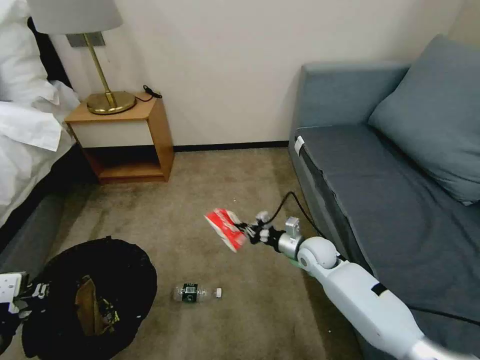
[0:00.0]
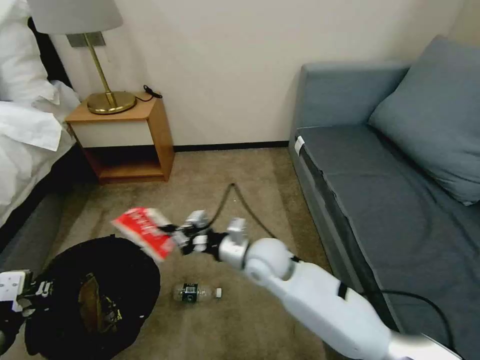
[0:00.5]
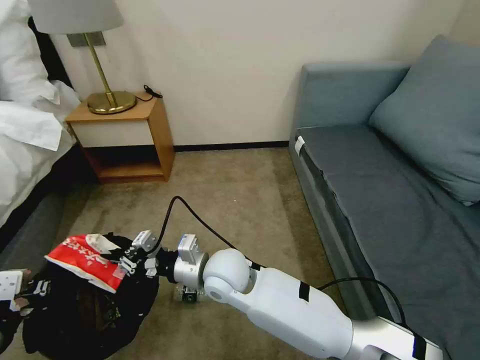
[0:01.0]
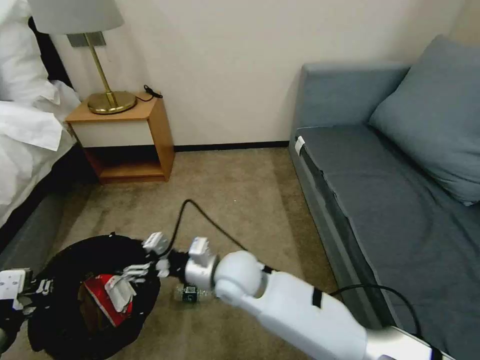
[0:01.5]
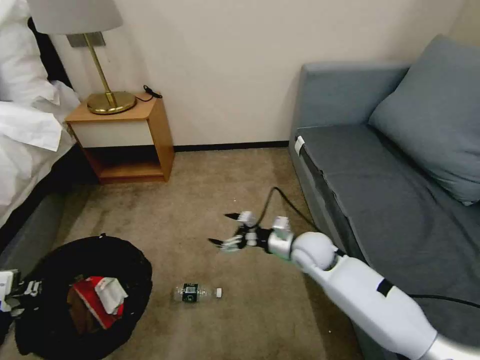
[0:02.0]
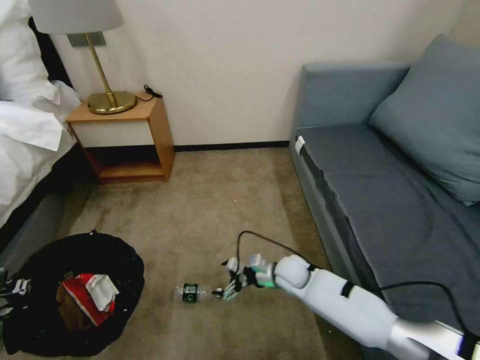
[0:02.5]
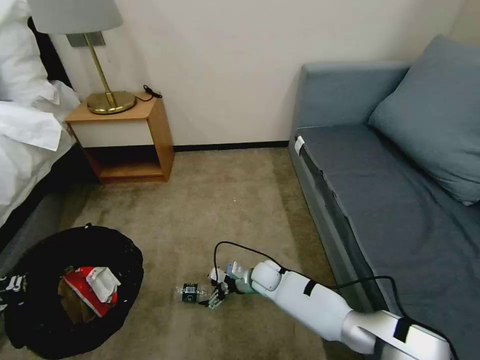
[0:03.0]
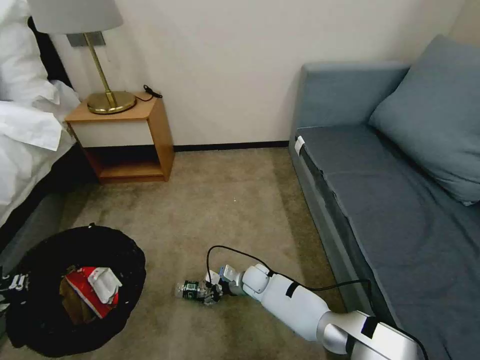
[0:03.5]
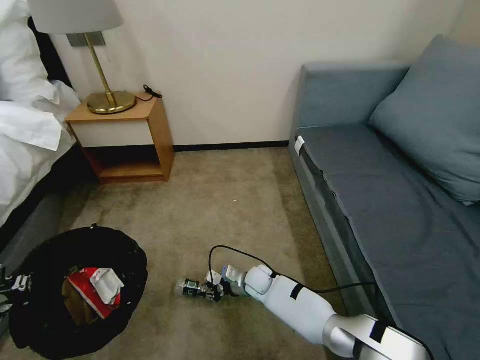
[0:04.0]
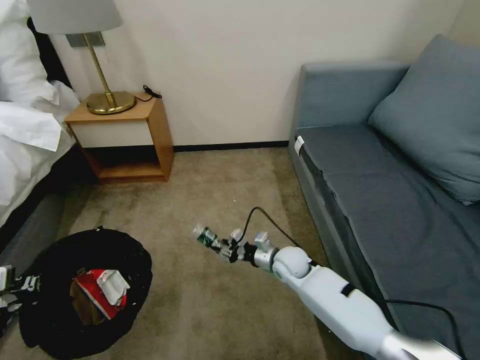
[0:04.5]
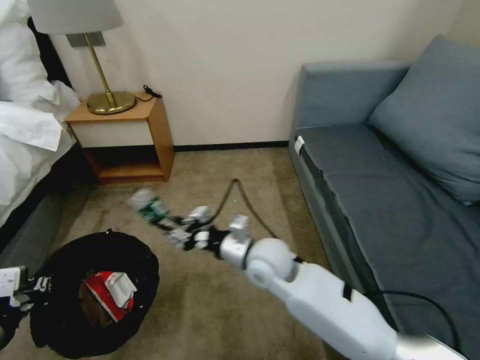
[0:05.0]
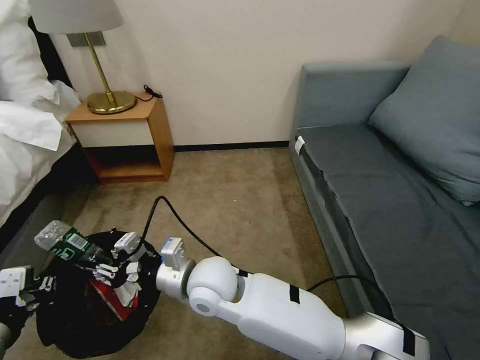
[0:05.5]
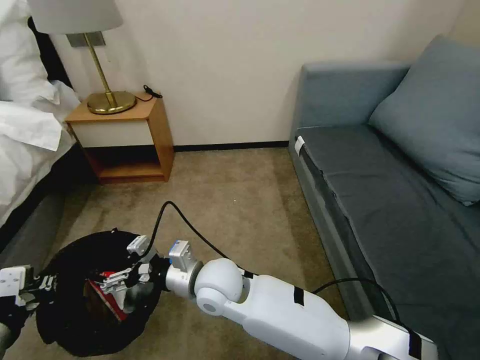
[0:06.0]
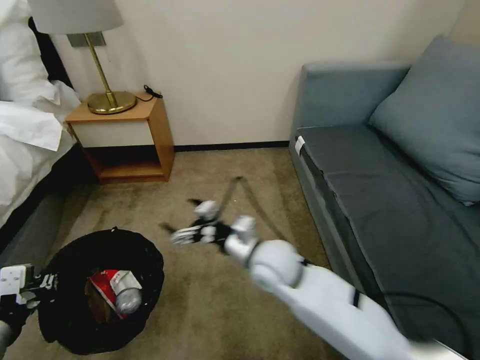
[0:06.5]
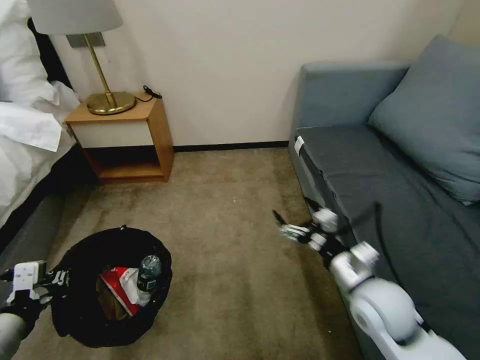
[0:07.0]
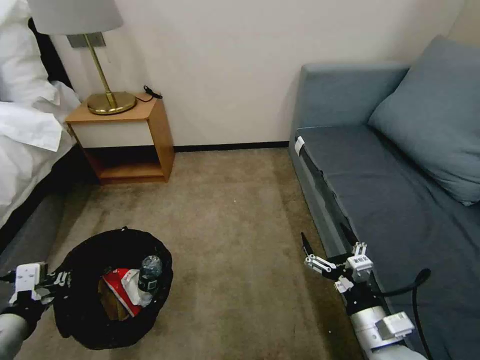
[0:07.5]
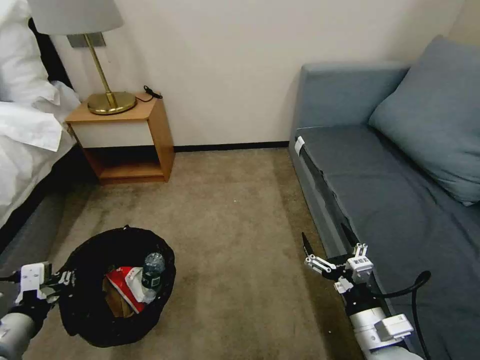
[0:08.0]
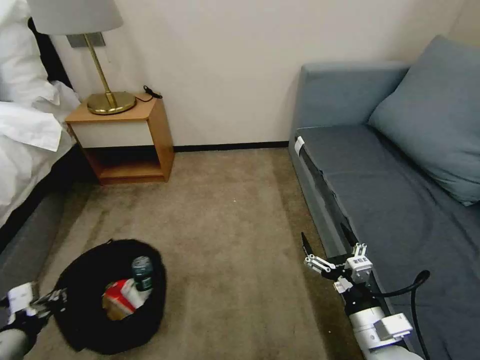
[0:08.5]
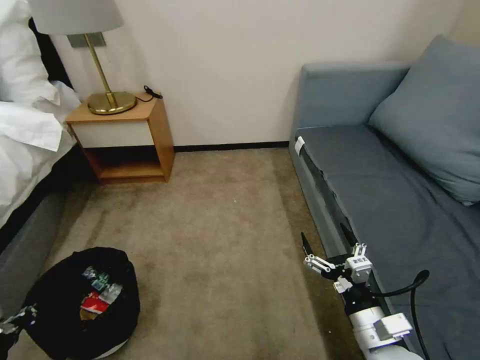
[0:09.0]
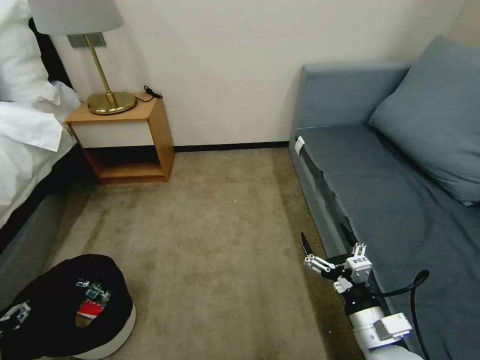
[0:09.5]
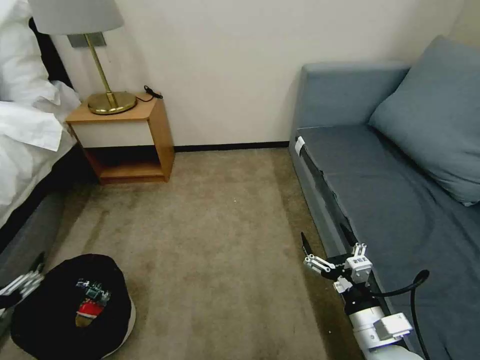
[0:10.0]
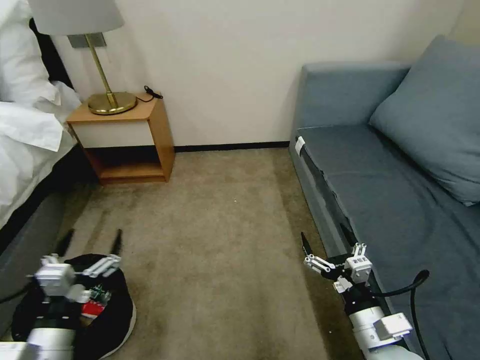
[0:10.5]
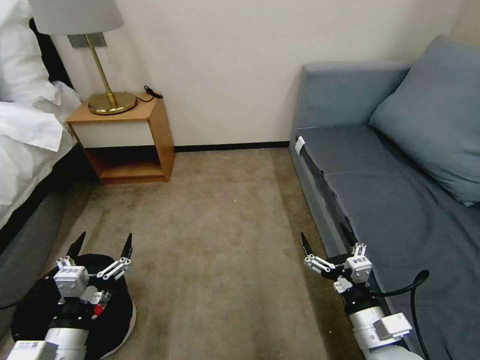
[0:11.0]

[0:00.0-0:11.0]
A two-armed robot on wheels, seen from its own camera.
Task of the whole recording: Pick up the trash bin, then pick up the garbage on the floor and place it into the trash bin.
0:00.0 to 0:02.0: The right gripper is displaced upward by approximately 5 cm, reaches approximately 25 cm to the left, then returns, and opens up.
0:02.0 to 0:03.5: The right gripper moves downward and to the left, approximately 25 cm.
0:03.5 to 0:05.5: The right gripper heads upward, to the left and backward, covering some 30 cm, and closes its fingers.
0:05.5 to 0:07.5: The right gripper is displaced to the right and backward by roughly 35 cm, and opens.
0:07.5 to 0:09.0: The left gripper heads downward and to the left, covering some 15 cm.
0:09.0 to 0:11.0: The left gripper travels to the right by about 20 cm, and opens.

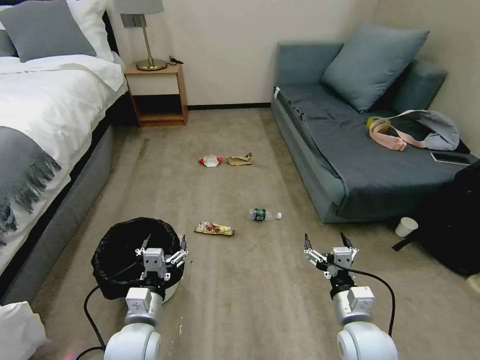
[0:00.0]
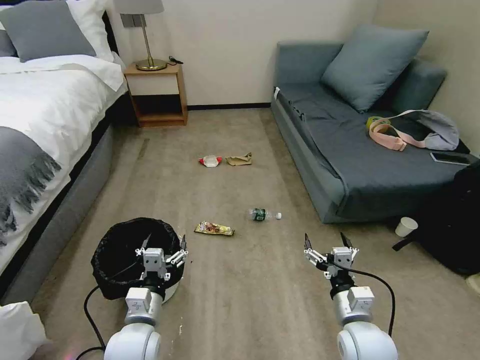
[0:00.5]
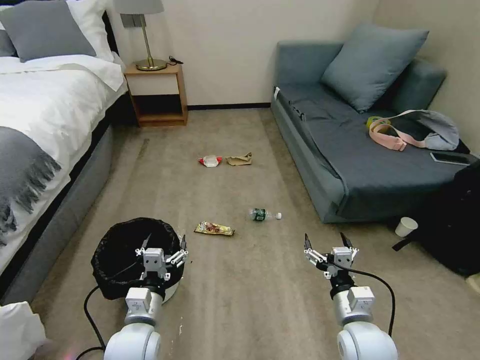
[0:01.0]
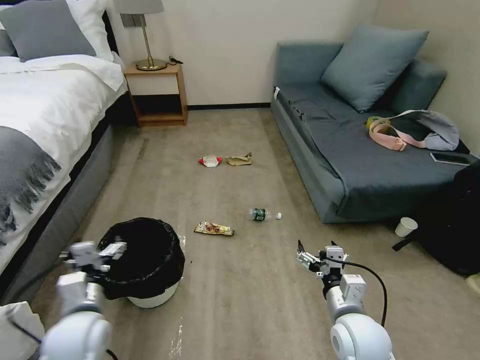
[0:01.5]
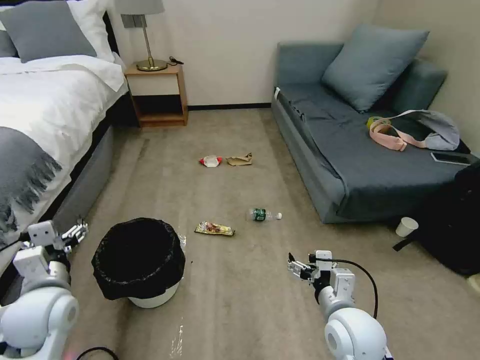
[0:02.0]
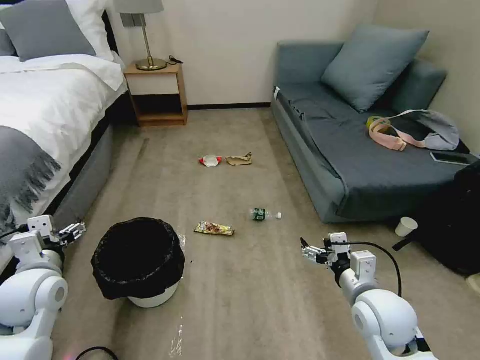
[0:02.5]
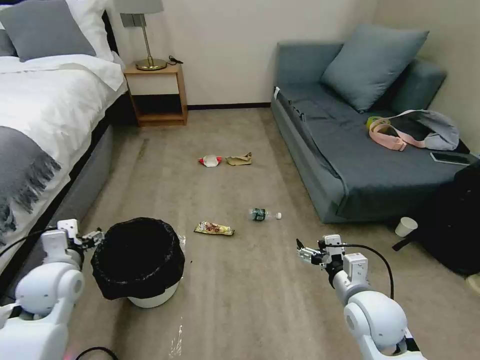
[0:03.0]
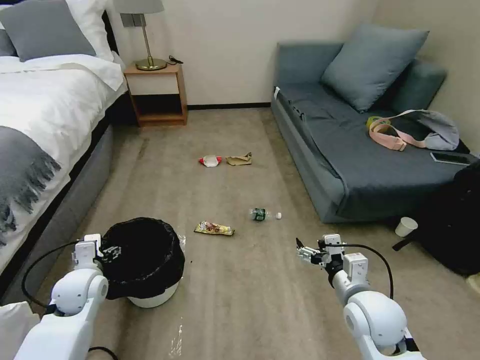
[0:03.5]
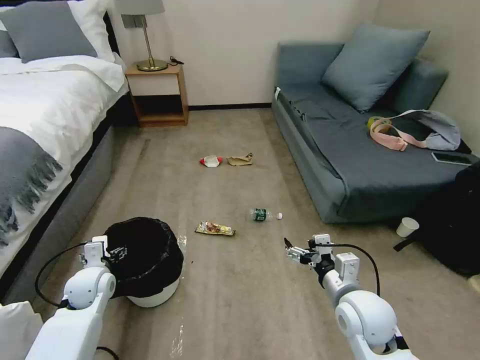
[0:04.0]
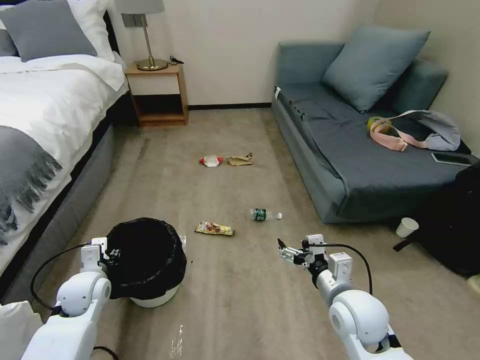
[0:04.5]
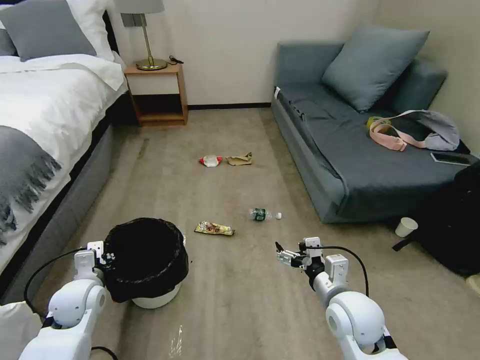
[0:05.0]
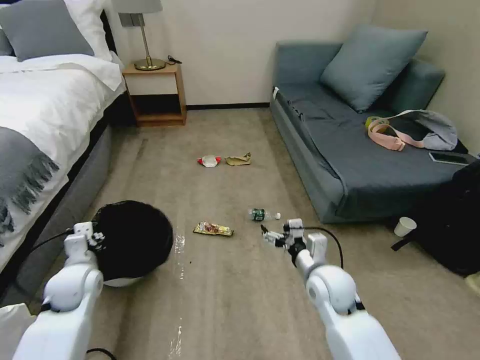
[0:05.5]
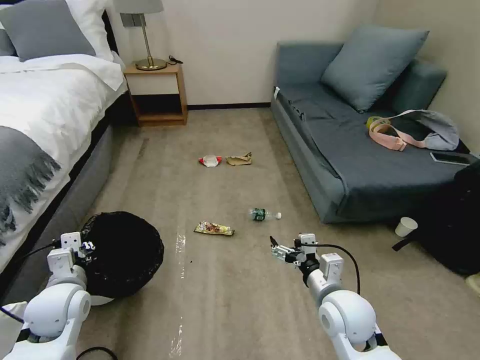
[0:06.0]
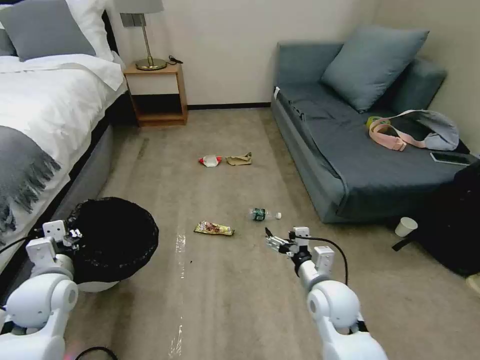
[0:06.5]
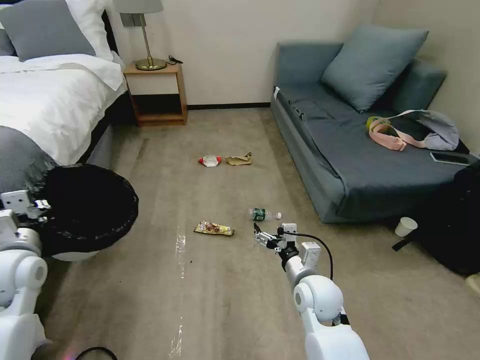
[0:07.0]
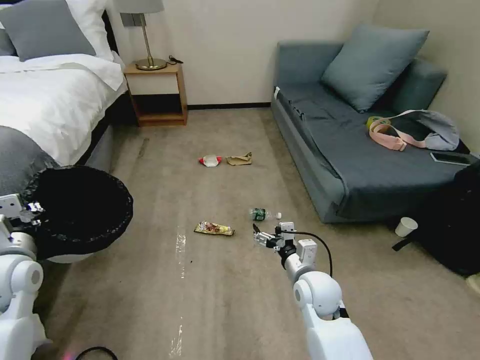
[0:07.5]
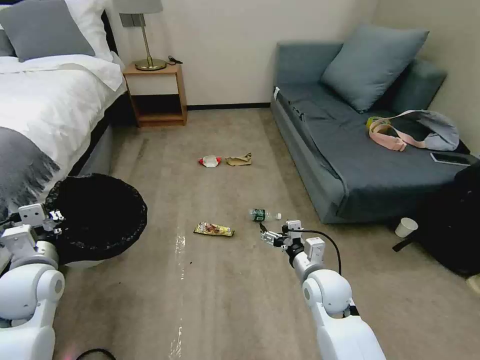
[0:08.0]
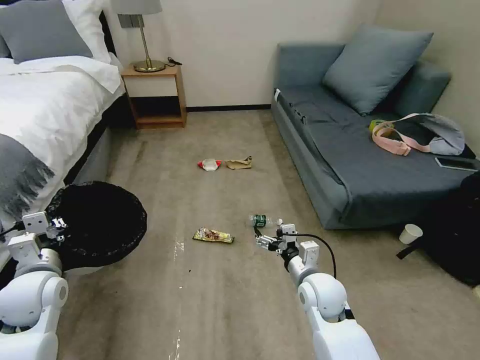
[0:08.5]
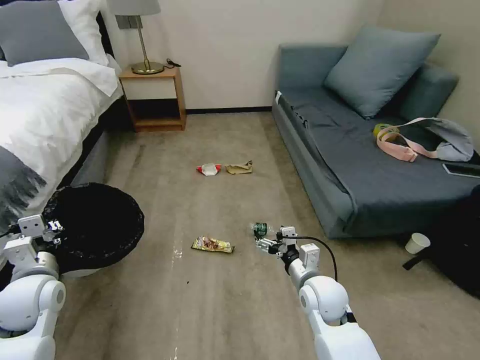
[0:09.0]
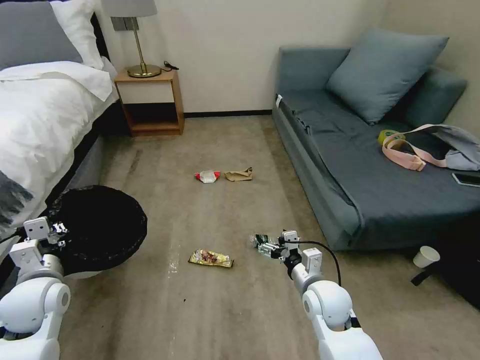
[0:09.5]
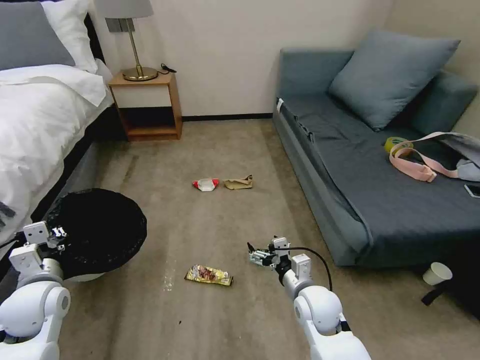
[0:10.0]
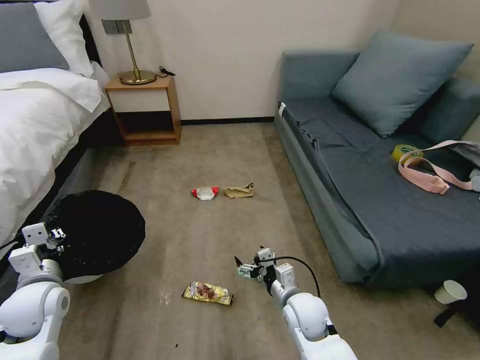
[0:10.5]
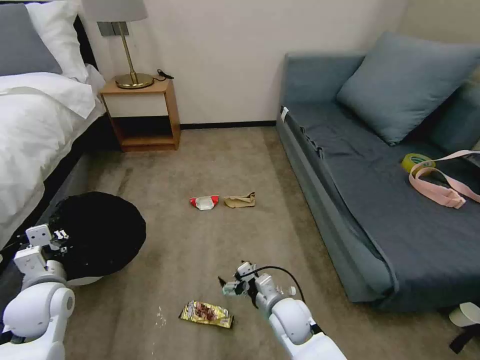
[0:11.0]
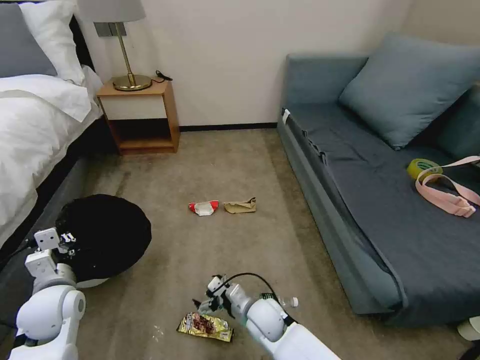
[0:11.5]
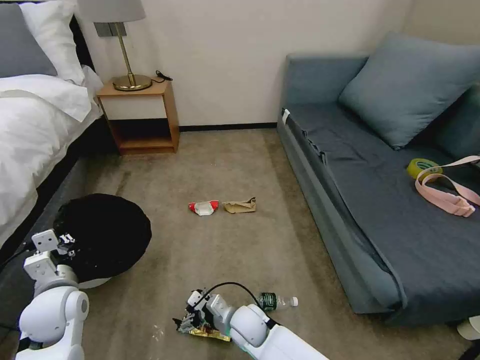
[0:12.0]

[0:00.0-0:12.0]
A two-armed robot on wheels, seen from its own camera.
Task of the whole recording: Pick up the trash bin, then pick up the garbage on the floor and place it into the trash bin.
0:02.0 to 0:04.0: The left gripper is displaced downward and forward by approximately 15 cm.
0:04.0 to 0:06.0: The left gripper travels backward and upward by approximately 10 cm, and closes.
0:06.0 to 0:08.0: The right gripper shifts roughly 5 cm forward, while the left gripper is displaced upward by about 5 cm.
0:10.0 to 0:12.0: The right gripper shifts about 20 cm to the left and downward.

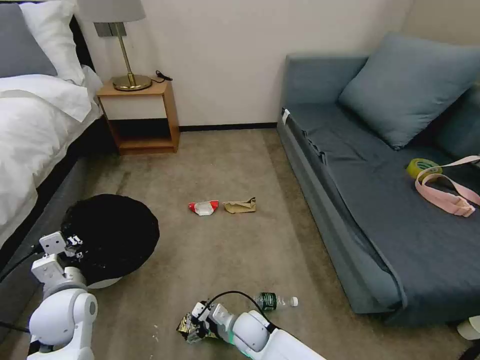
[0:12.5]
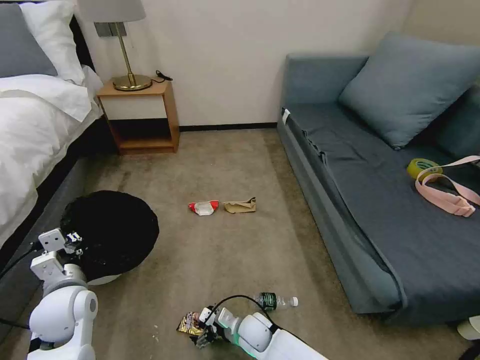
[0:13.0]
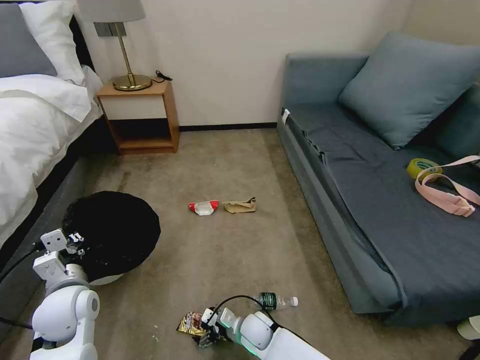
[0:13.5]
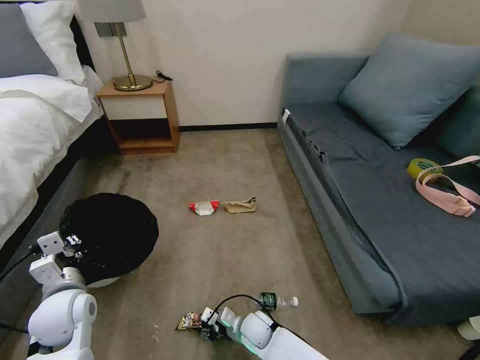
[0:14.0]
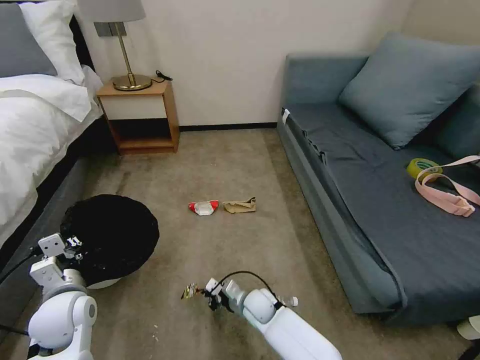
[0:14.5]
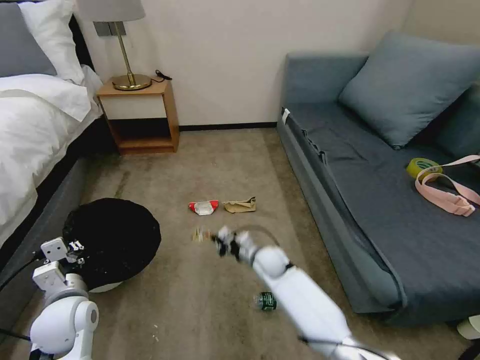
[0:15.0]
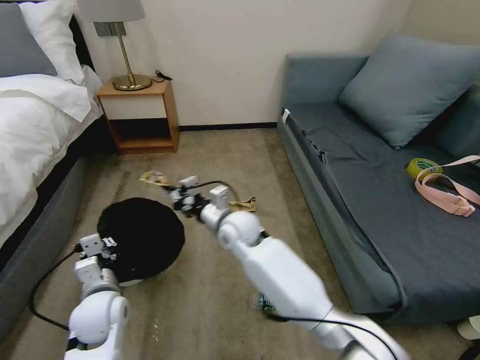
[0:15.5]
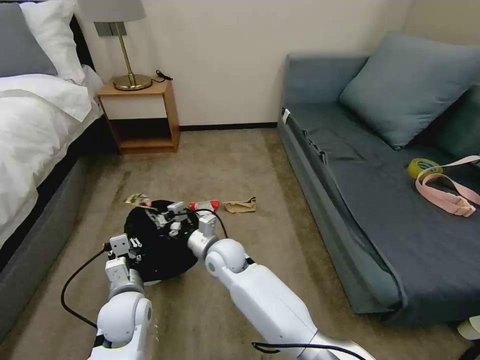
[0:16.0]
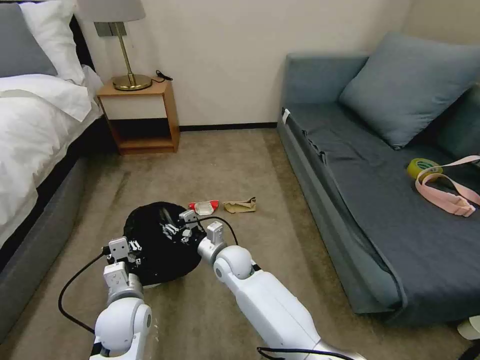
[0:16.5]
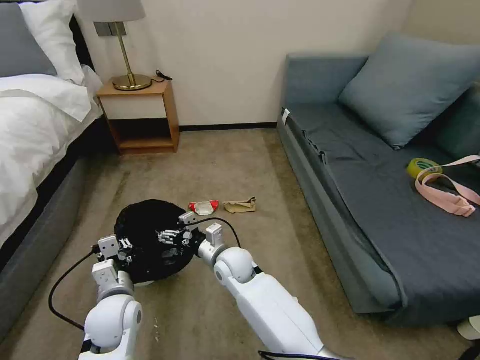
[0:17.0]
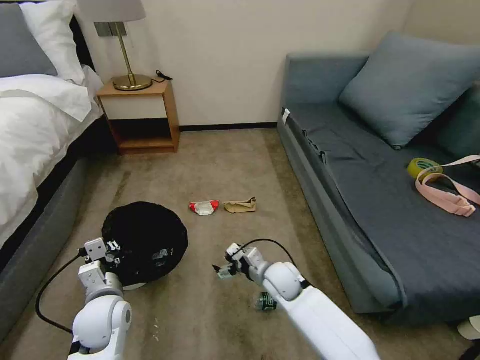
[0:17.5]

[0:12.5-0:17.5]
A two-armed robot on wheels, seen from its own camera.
Task of the whole recording: Pick up the trash bin, then pick up the garbage on the floor and place it into the trash bin.
0:12.5 to 0:15.0: The right gripper shifts roughly 15 cm forward and upward, and closes its fingers.
0:15.0 to 0:17.5: The right gripper travels backward by approximately 5 cm, moves about 15 cm upward and comes back, and opens its fingers, while the left gripper travels to the right by some 5 cm.
